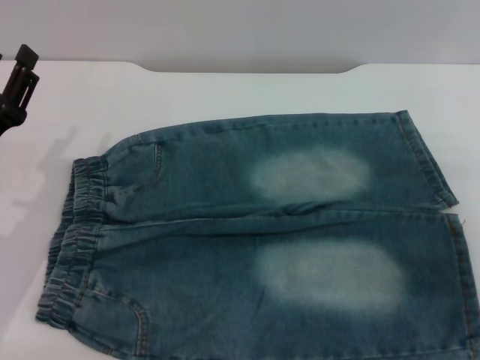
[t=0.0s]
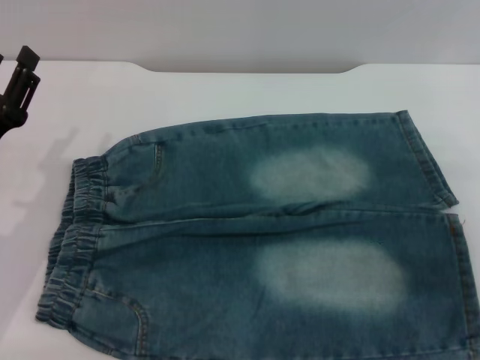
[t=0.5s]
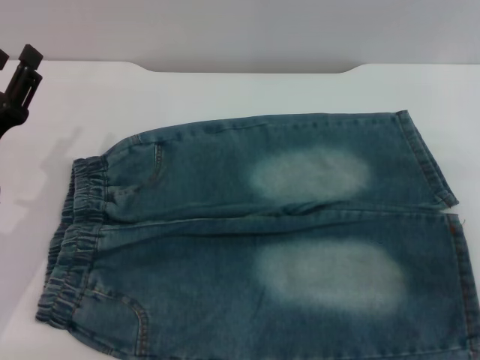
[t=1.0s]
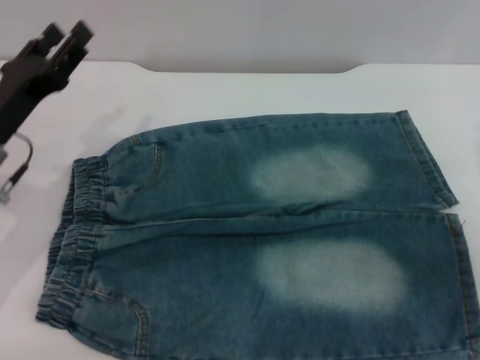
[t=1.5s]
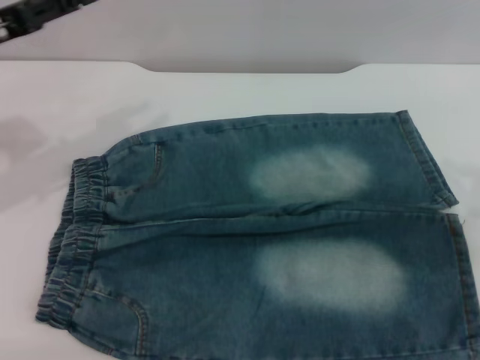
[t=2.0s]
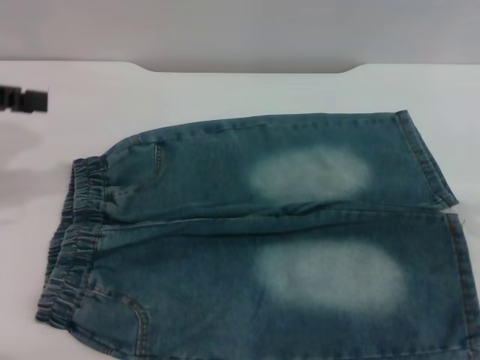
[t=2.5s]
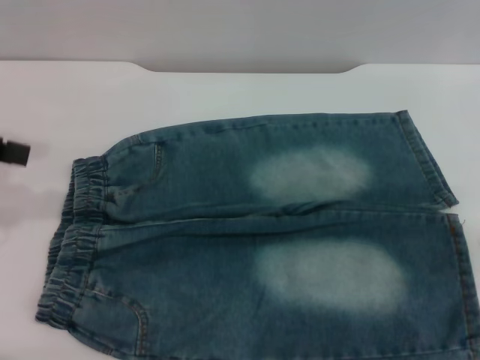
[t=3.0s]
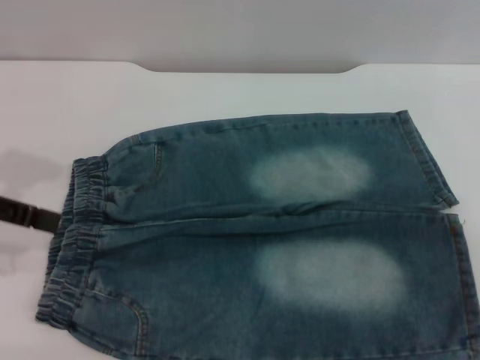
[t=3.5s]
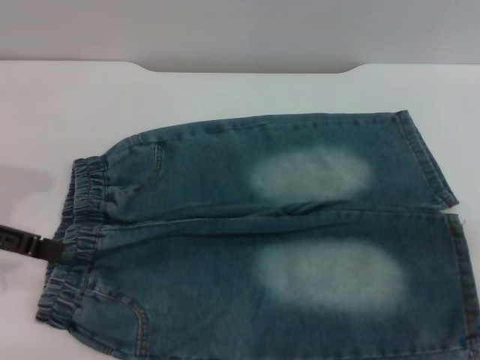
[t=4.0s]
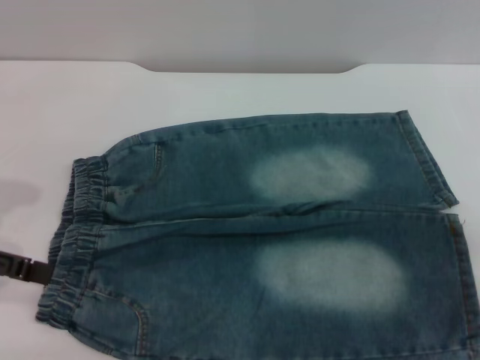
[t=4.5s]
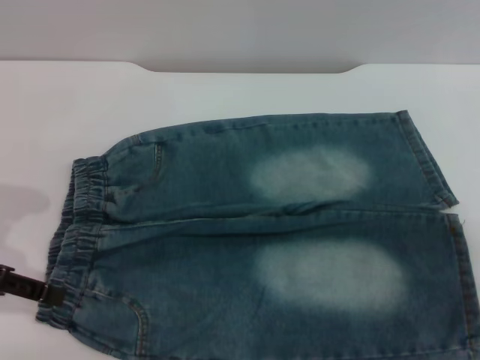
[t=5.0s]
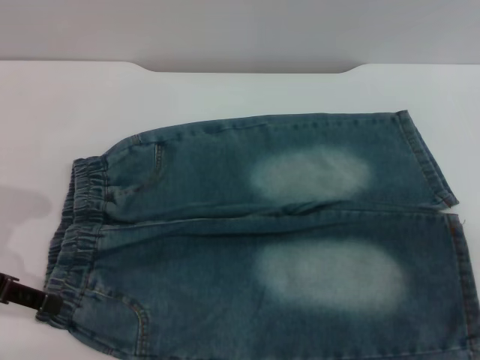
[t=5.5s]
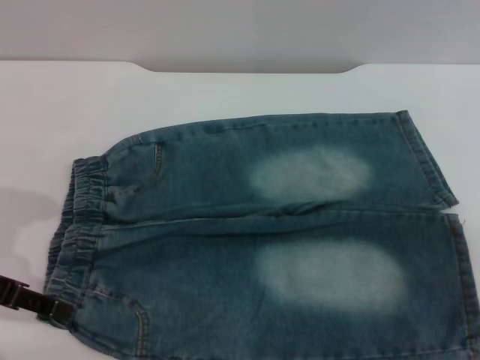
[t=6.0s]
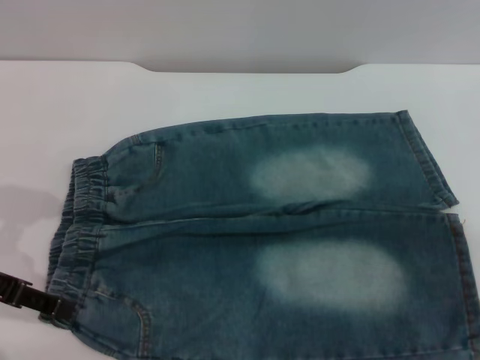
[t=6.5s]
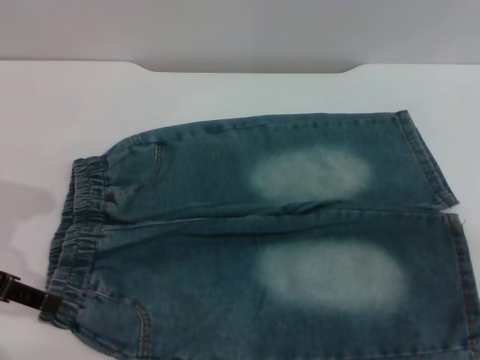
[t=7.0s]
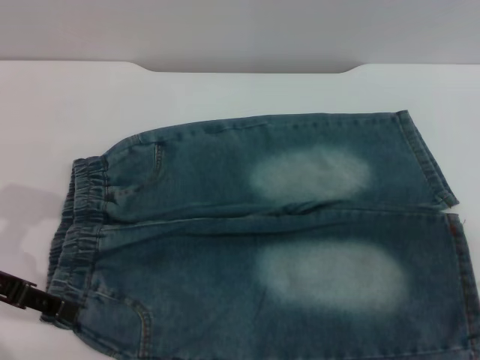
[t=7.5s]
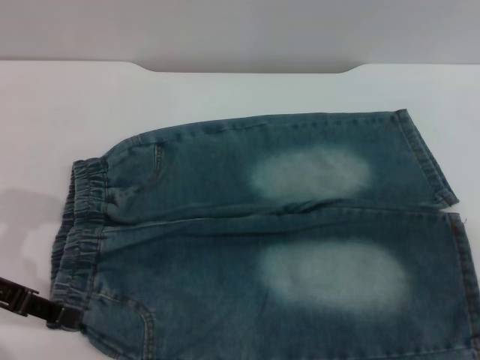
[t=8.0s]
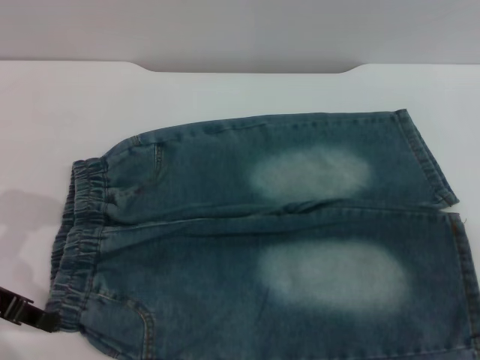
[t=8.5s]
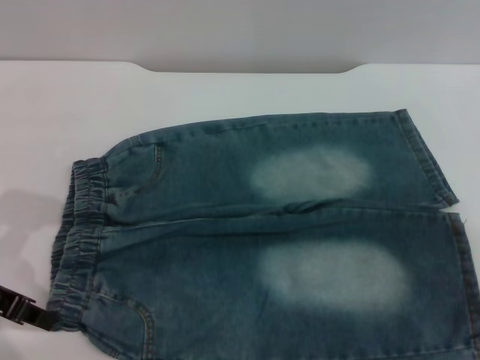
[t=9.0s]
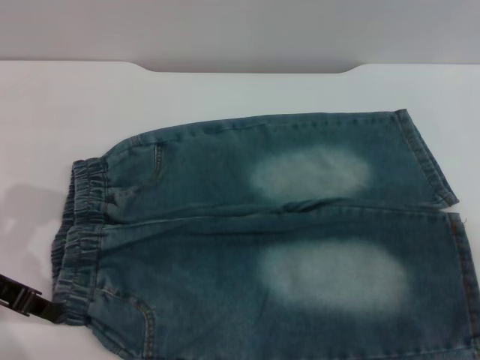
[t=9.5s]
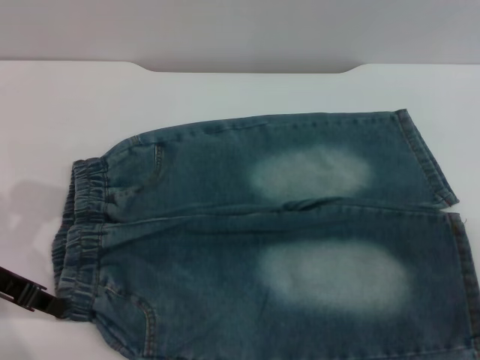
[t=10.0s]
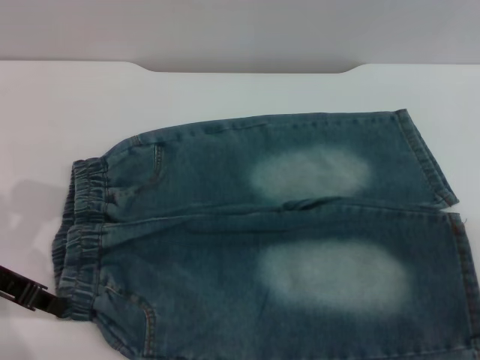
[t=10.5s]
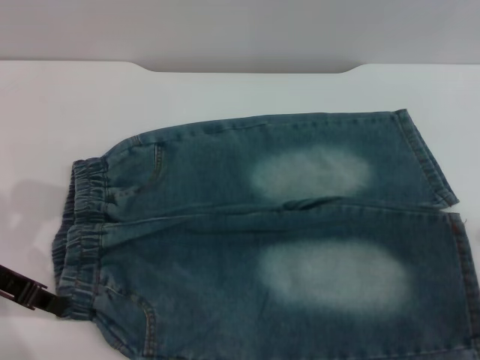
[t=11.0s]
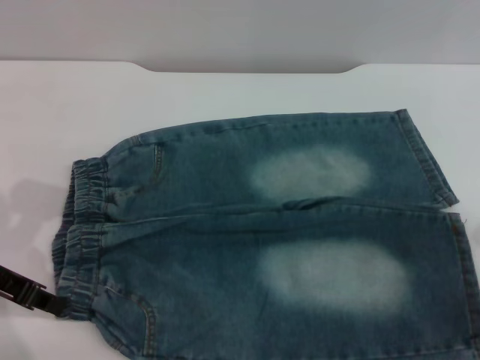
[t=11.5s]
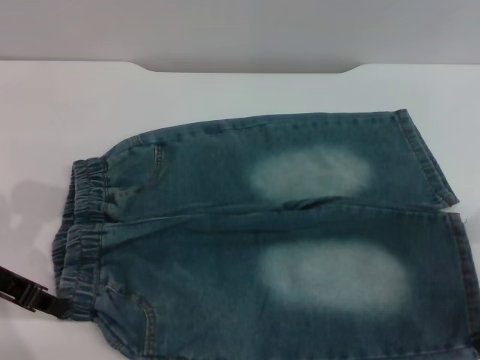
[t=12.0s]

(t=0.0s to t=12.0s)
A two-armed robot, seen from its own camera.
t=0.0s - t=2.0s: The left gripper shifts approximately 15 cm upward and forward.
t=2.0s - t=4.0s: The left gripper travels backward by about 10 cm.
t=4.0s - t=6.0s: The left gripper shifts some 5 cm downward.
t=6.0s - t=8.0s: Both grippers stay put.
t=8.0s - t=10.0s: The left gripper closes its fingers.

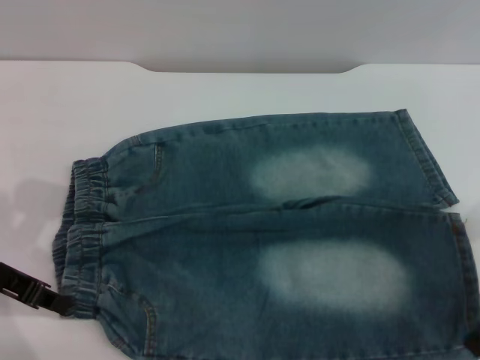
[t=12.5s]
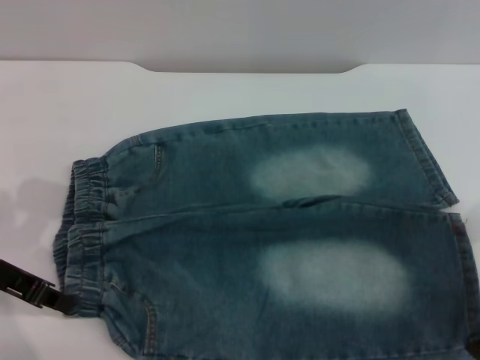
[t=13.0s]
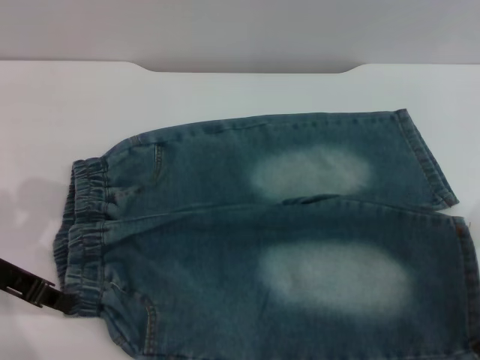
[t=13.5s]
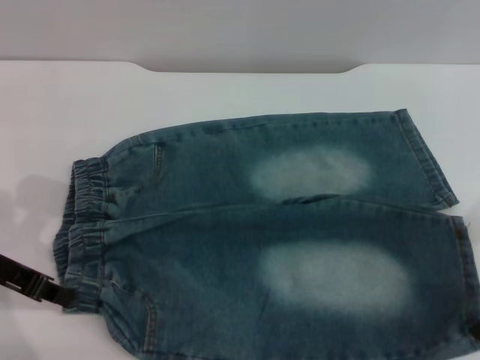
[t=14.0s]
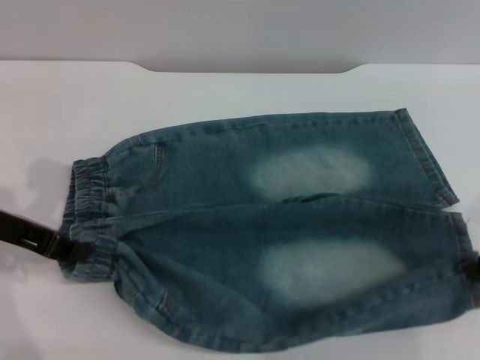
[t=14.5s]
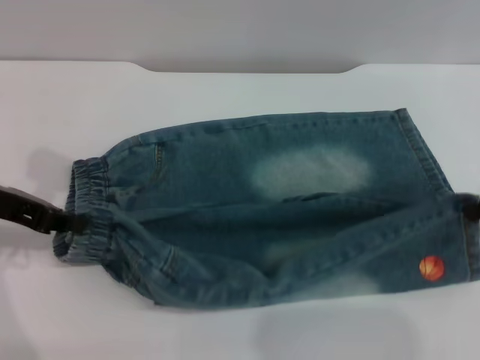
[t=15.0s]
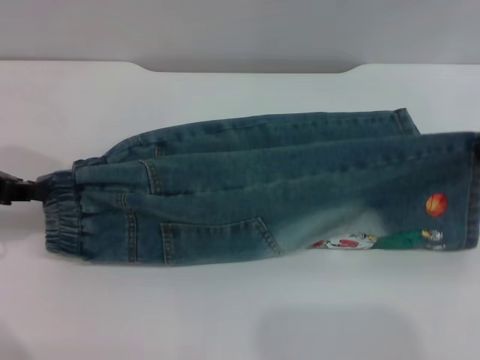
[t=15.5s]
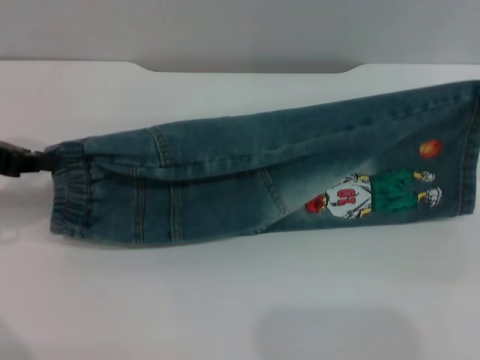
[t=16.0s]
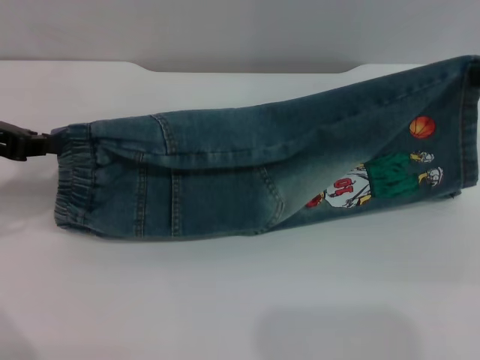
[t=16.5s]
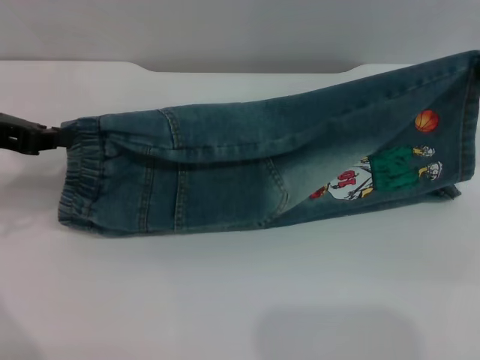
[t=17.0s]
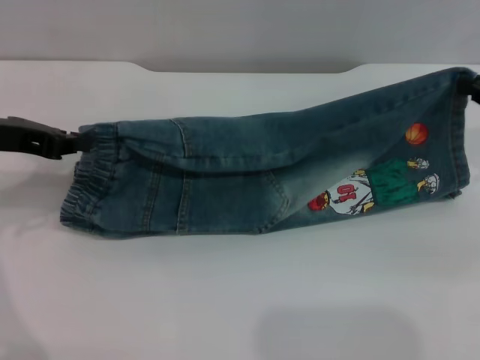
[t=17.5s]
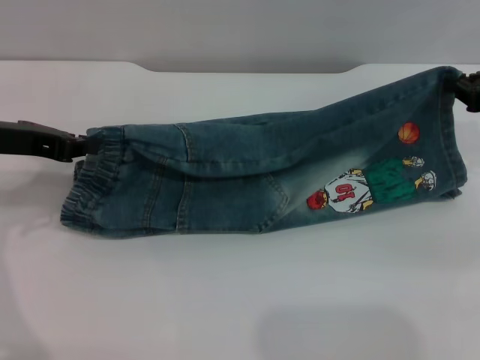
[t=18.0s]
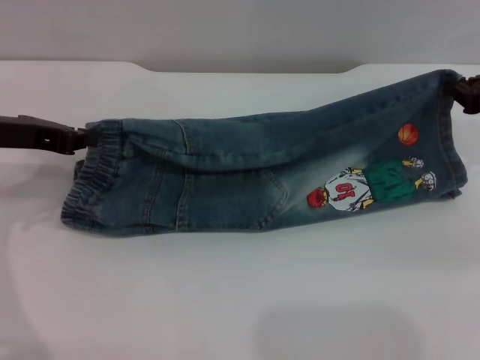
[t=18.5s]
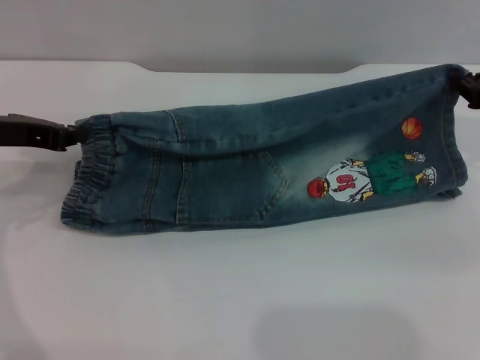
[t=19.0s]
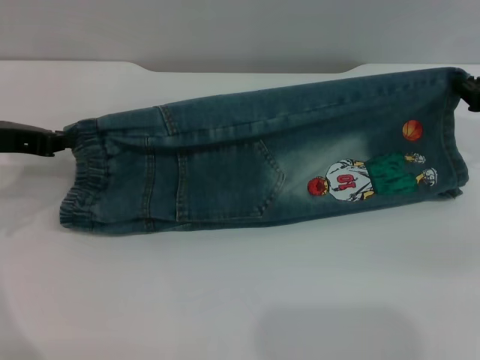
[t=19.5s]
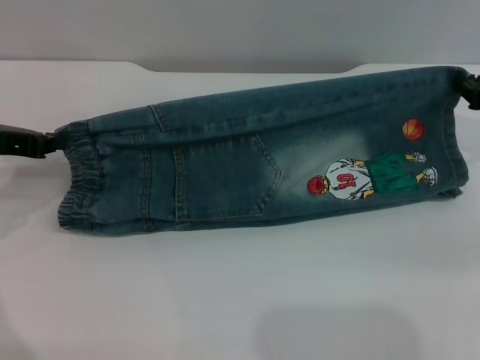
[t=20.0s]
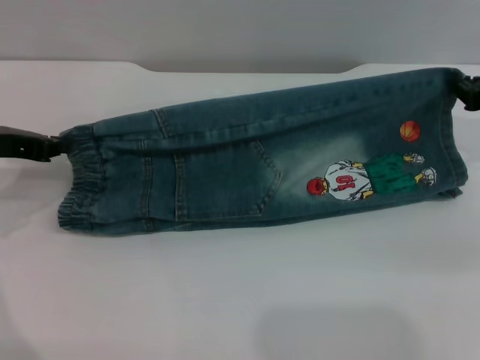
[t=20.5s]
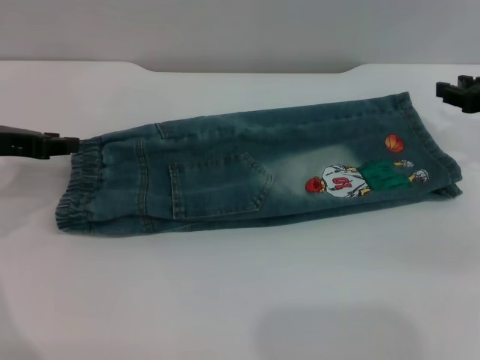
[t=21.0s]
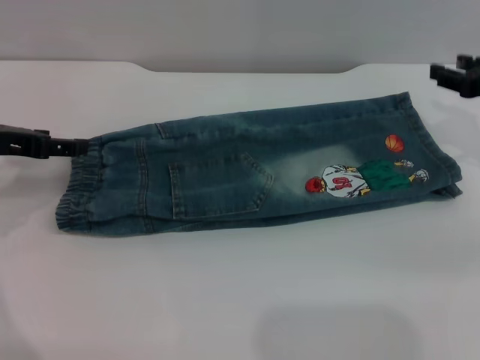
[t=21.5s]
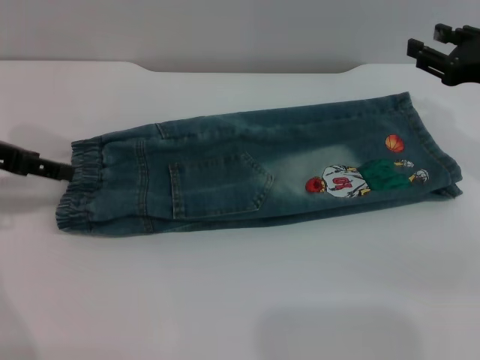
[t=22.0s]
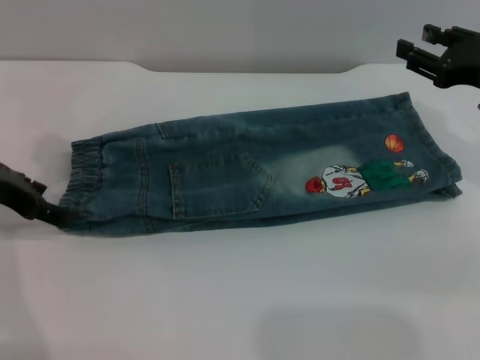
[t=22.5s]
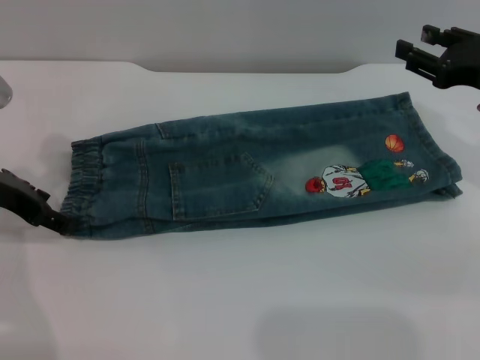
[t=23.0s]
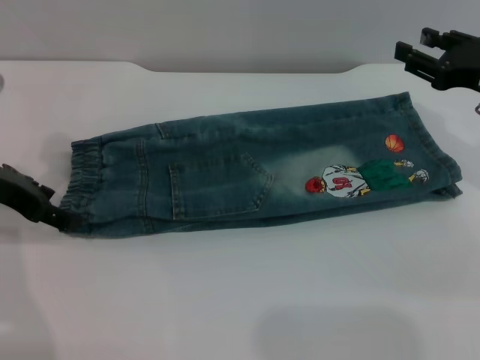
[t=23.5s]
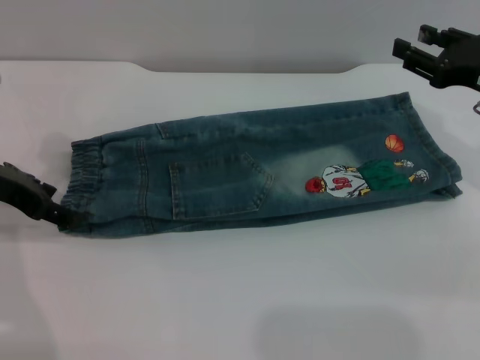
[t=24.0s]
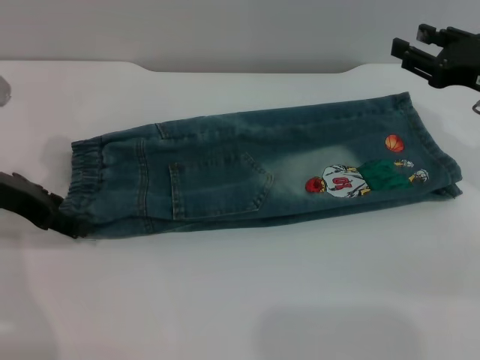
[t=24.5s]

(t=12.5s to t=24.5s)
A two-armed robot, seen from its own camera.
Step, t=12.5s - t=20.5s: Fold the bottom of the pants upward with both grippers.
t=12.5s - t=14.5s: The right gripper closes.
t=14.5s - t=16.5s: The grippers both shift upward by some 5 cm.
t=16.5s - t=18.5s: The right gripper heads downward, covering approximately 5 cm; the left gripper moves about 5 cm.
t=18.5s - t=20.5s: The grippers make only small movements.
t=20.5s - t=22.5s: The left gripper opens its fingers, while the right gripper opens its fingers.
t=22.5s - t=24.5s: Both grippers stay put.

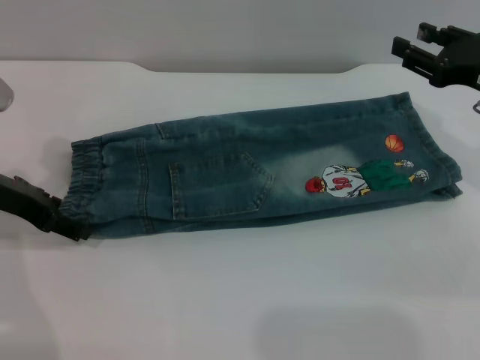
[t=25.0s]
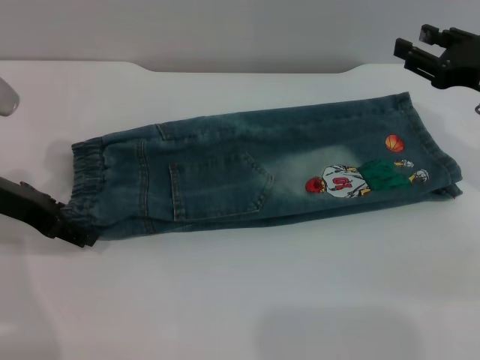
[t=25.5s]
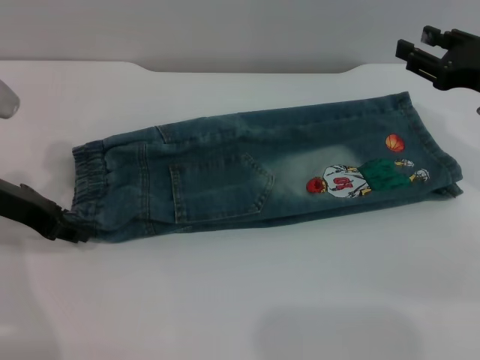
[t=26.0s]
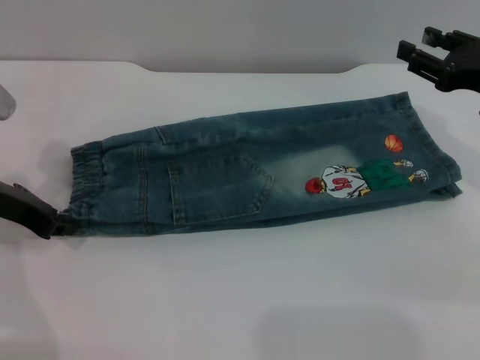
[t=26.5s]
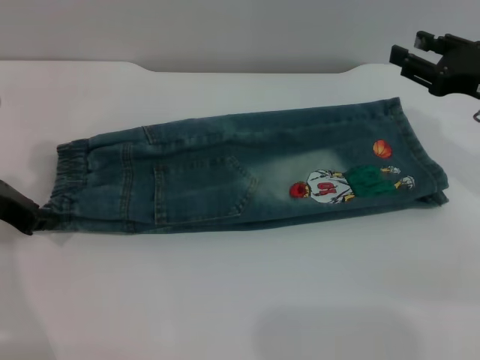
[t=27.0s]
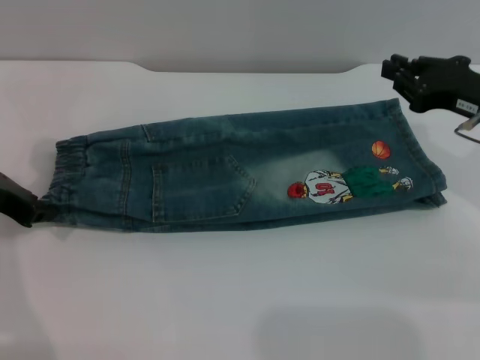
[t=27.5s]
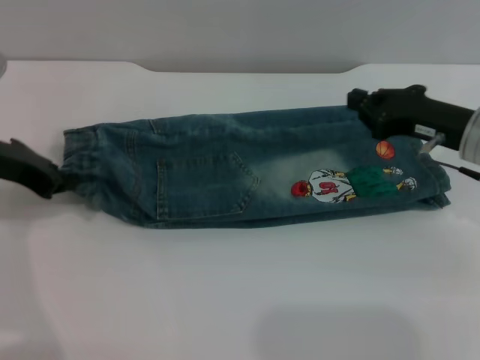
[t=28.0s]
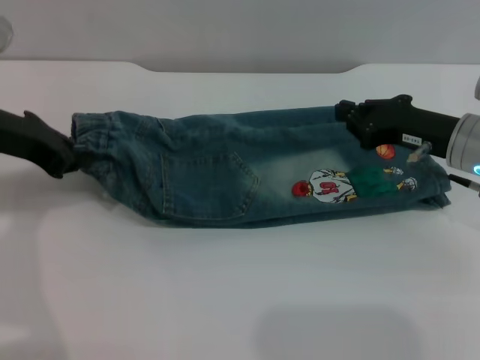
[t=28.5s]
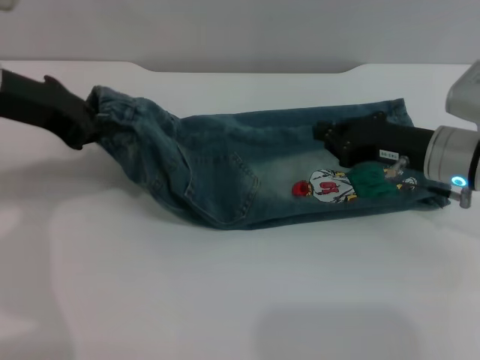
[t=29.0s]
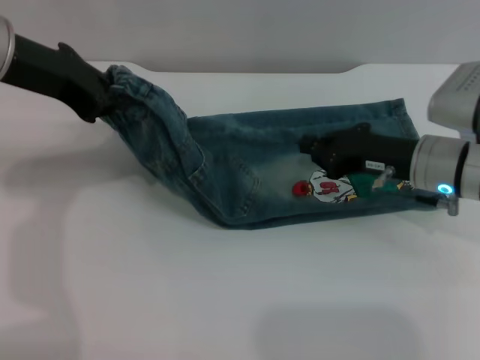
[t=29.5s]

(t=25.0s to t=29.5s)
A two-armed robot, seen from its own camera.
t=25.0s - t=27.0s: The left gripper closes up.
t=27.0s - t=29.5s: The left gripper moves upward and to the right, about 15 cm. Meanwhile the right gripper shifts some 10 cm to the left and downward, and closes its fingers.
